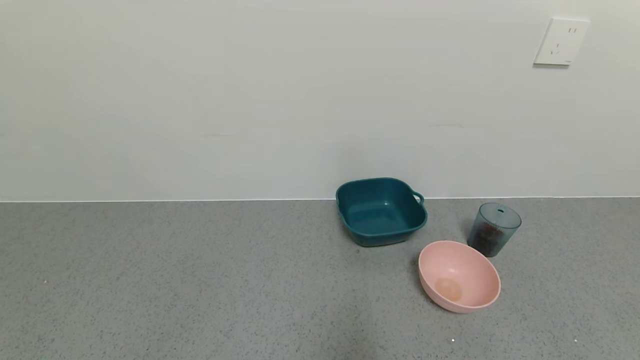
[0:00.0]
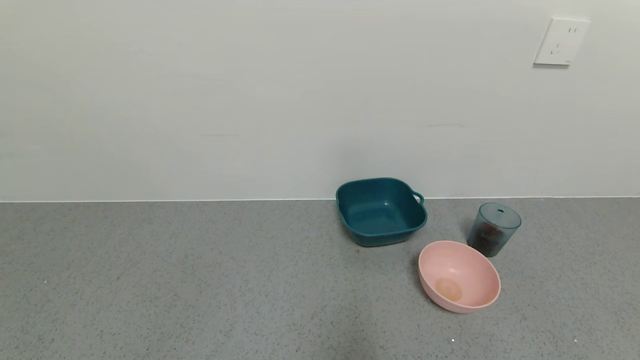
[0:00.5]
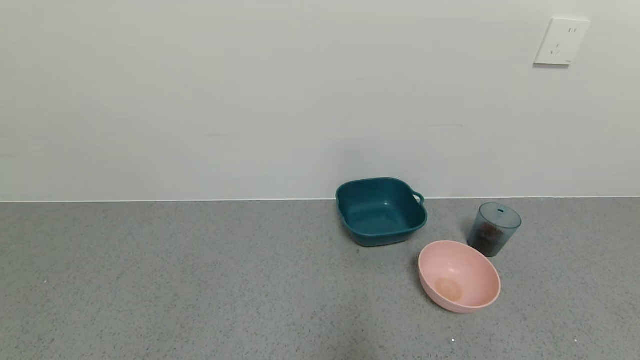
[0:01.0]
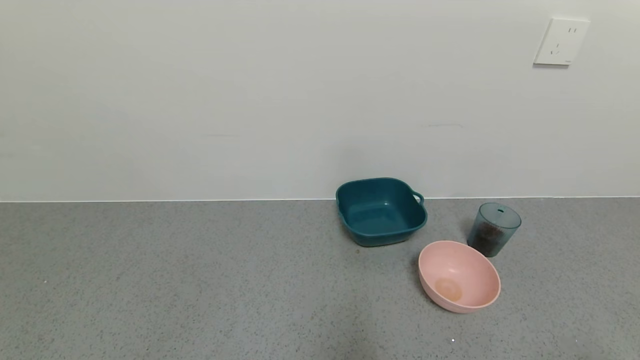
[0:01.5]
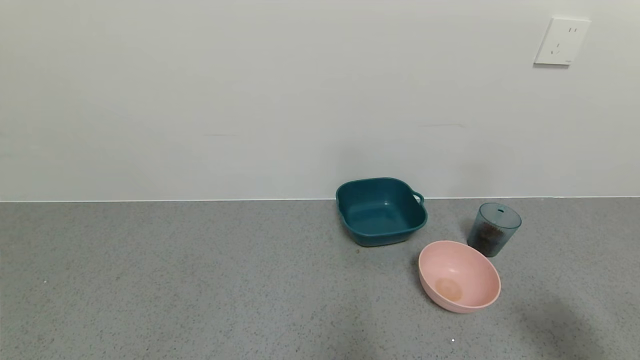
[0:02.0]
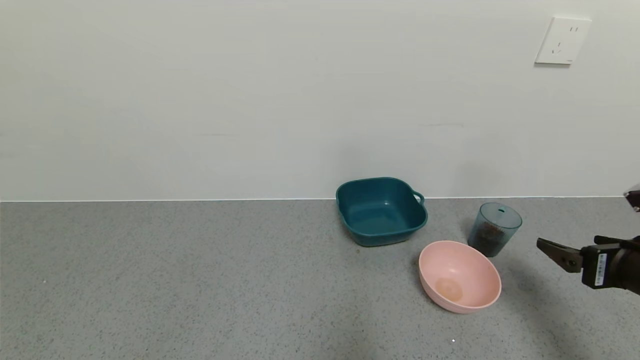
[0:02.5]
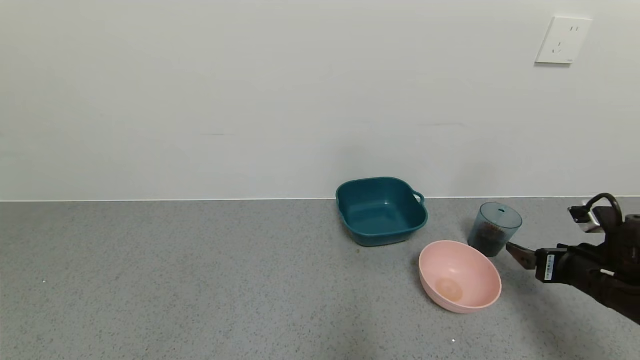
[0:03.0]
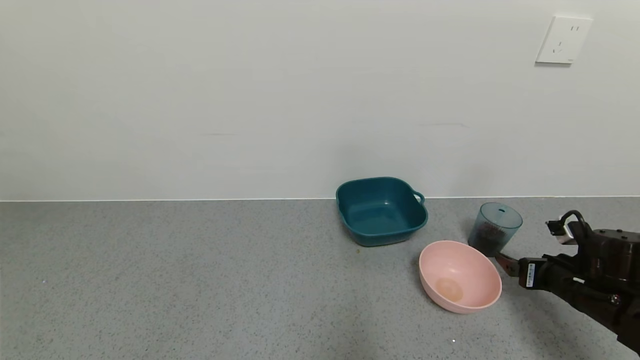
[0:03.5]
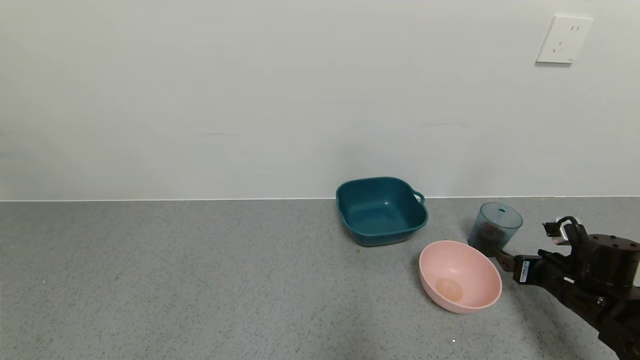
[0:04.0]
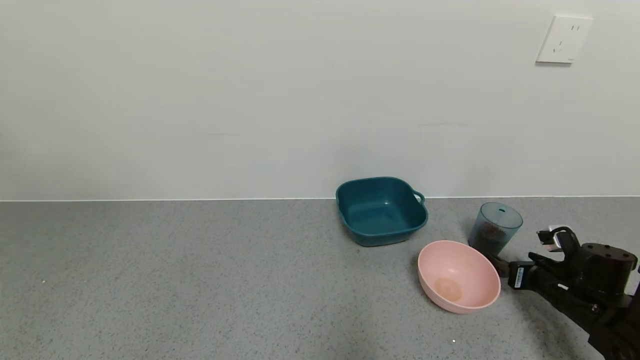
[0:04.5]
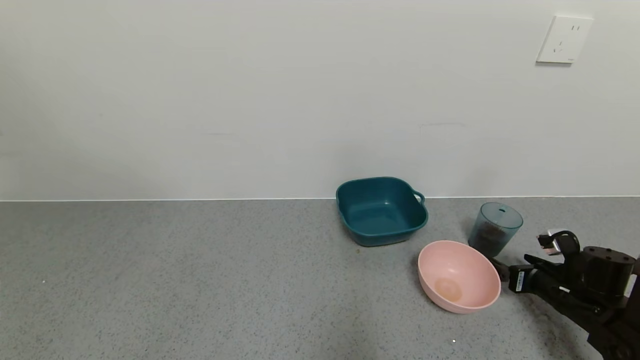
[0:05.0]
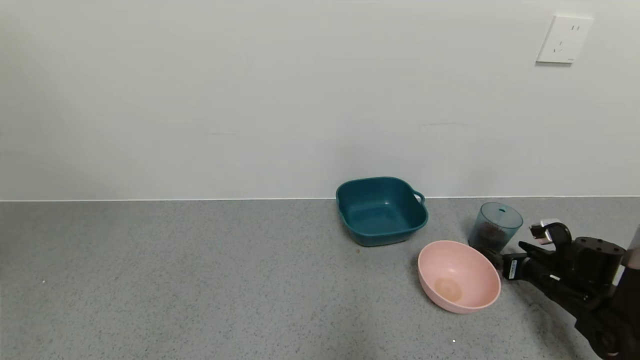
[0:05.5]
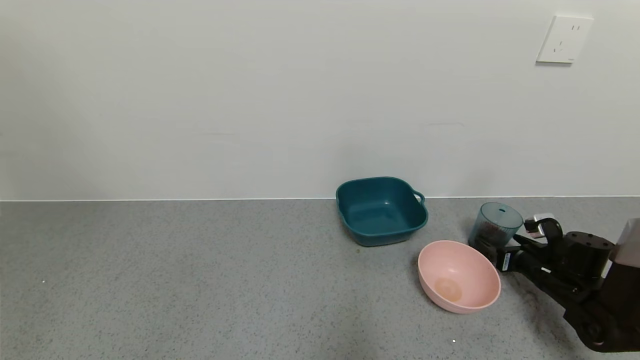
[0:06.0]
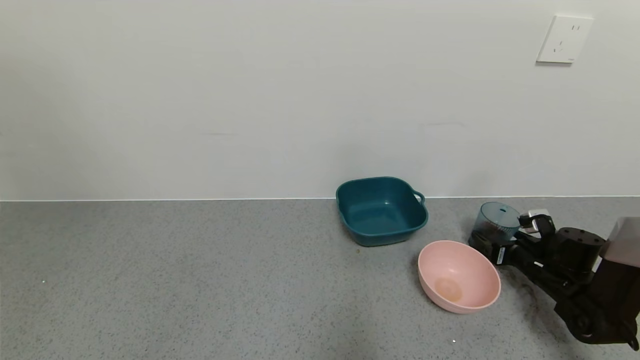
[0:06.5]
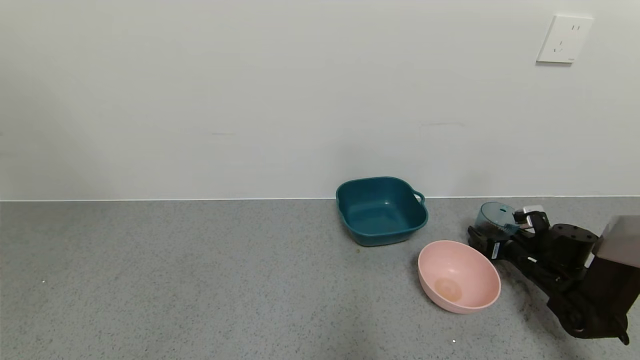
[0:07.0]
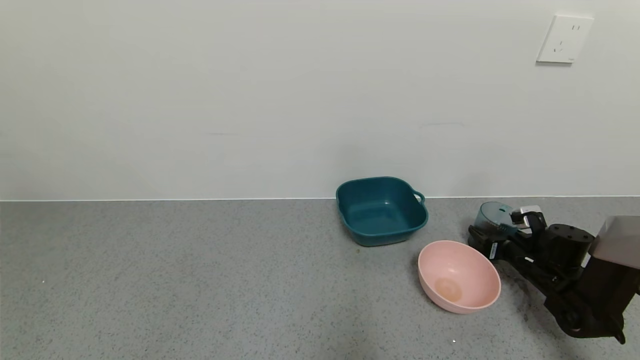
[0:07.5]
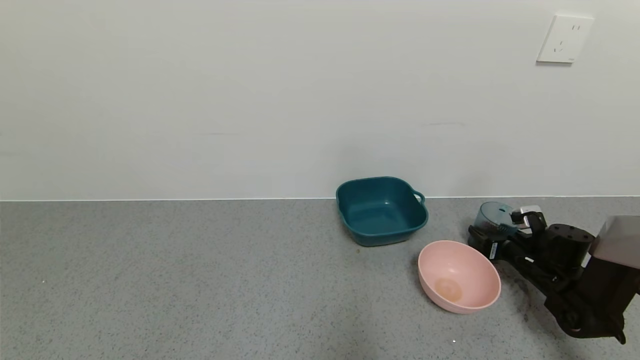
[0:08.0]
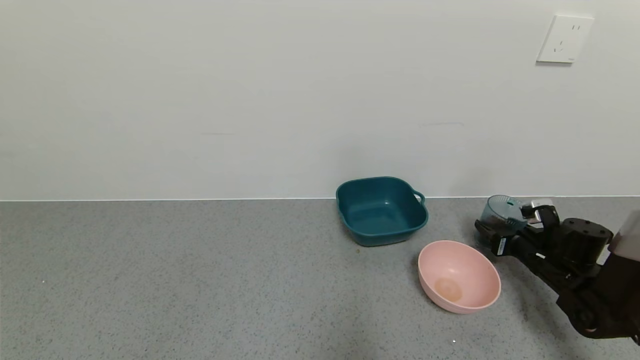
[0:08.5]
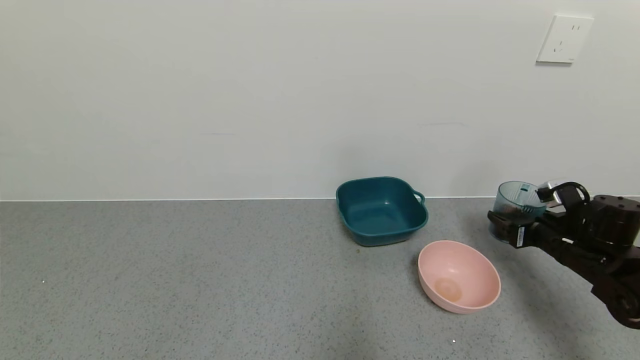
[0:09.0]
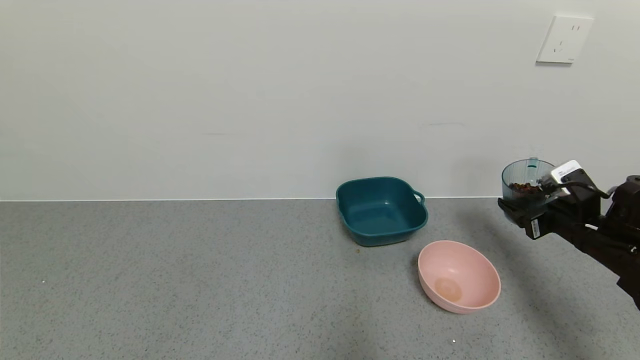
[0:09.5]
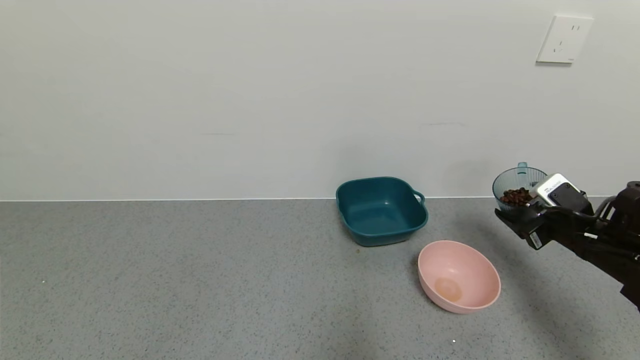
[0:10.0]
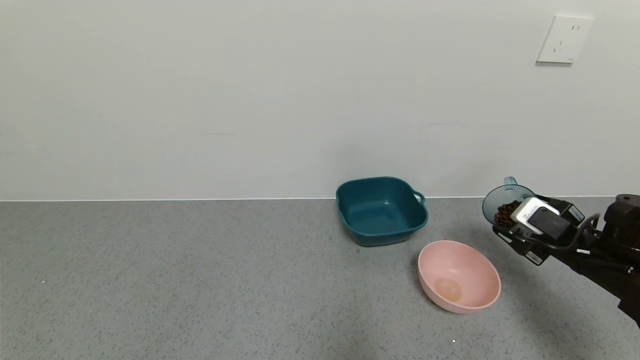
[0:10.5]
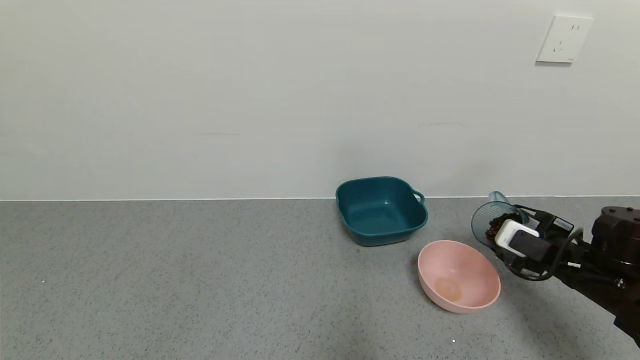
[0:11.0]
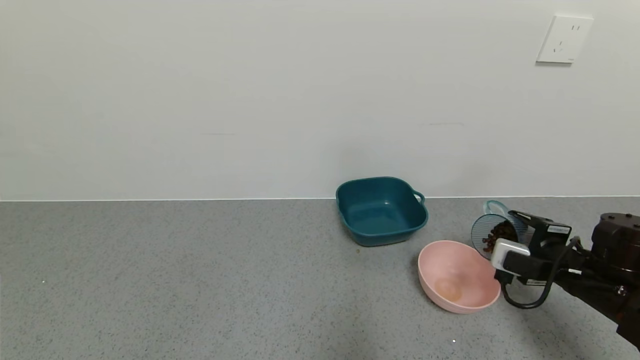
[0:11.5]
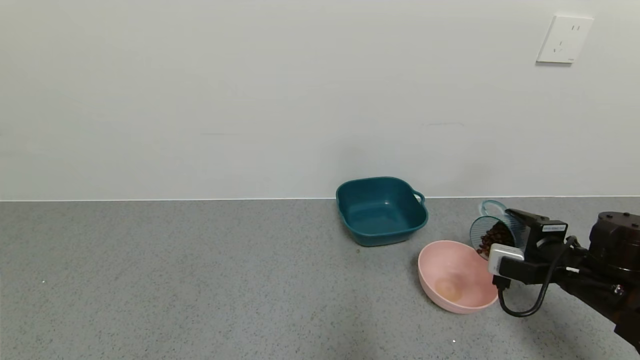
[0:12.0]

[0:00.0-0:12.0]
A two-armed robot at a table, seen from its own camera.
Task of the whole recording: use a gripper to pick up the cup and pour the solid into a bowl or tray.
Step, 0:00.0 to 0:08.0: Grasp the glass of coffee beans with the right gripper.
0:00.0 to 0:02.0: The right gripper heads upward and forward, covering some 15 cm.
0:02.0 to 0:04.0: The right gripper travels forward and downward by approximately 25 cm.
0:04.0 to 0:06.0: The right gripper goes approximately 5 cm forward.
0:06.0 to 0:08.0: The right gripper closes up.
0:08.0 to 0:10.0: The right gripper is displaced upward and backward by about 15 cm.
0:10.0 to 0:12.0: The right gripper moves approximately 5 cm.

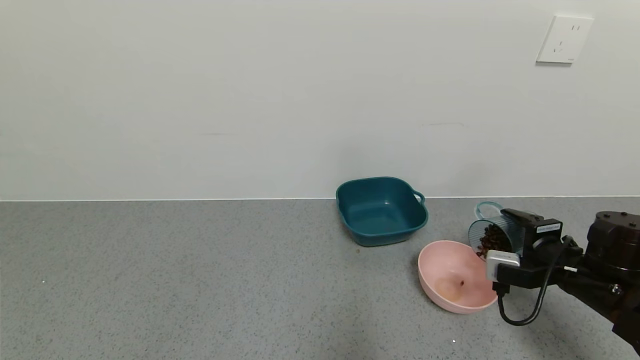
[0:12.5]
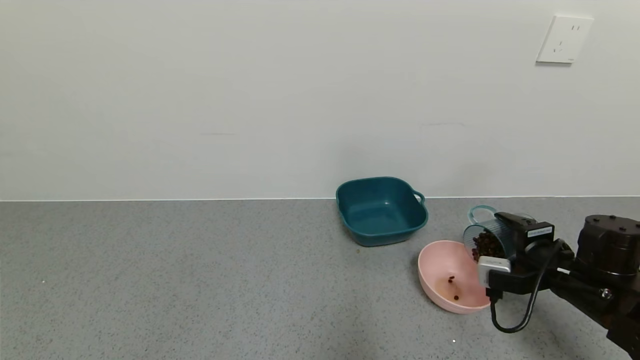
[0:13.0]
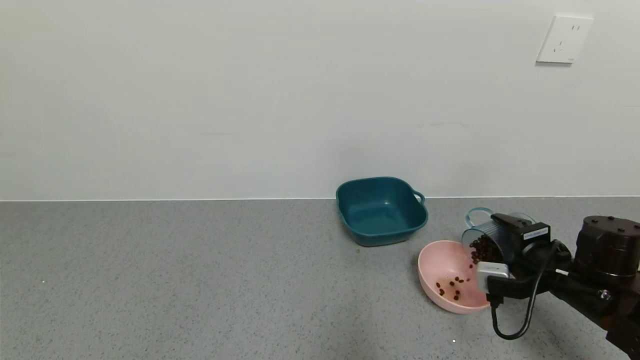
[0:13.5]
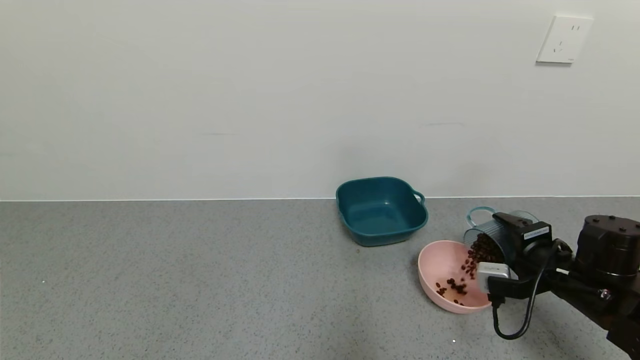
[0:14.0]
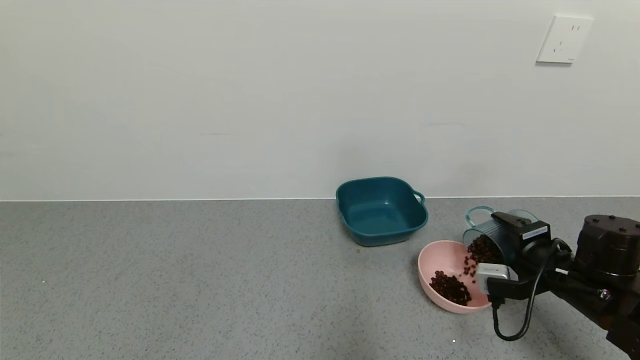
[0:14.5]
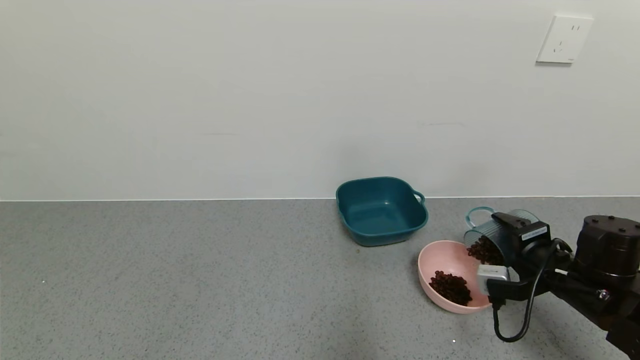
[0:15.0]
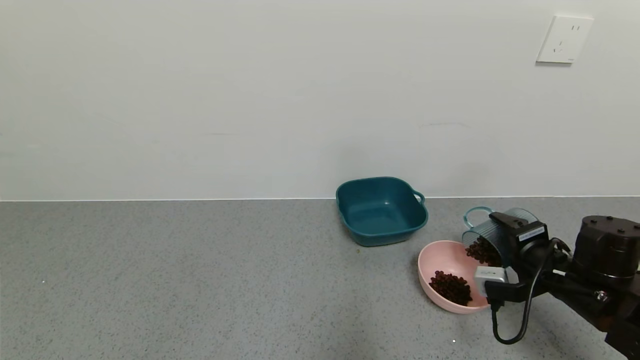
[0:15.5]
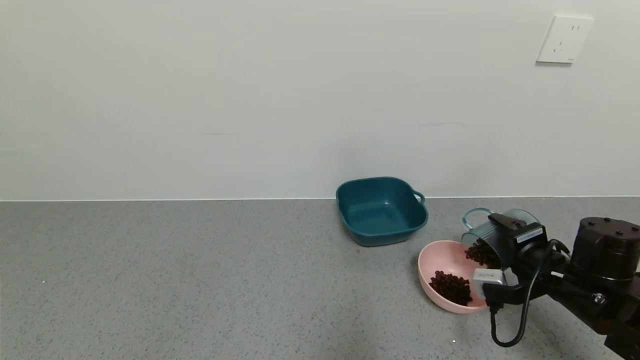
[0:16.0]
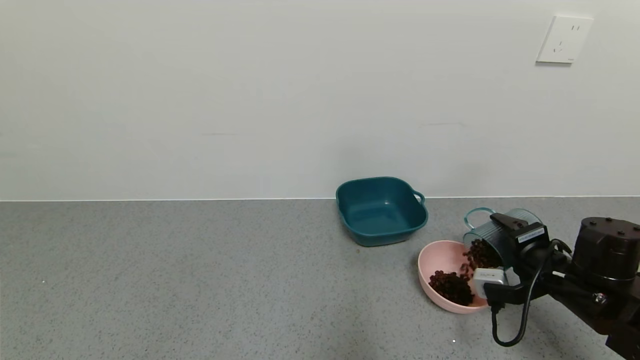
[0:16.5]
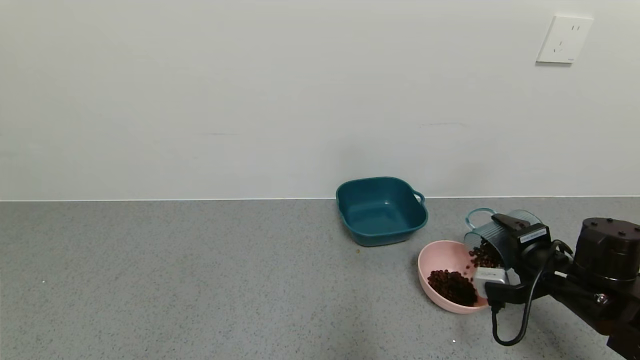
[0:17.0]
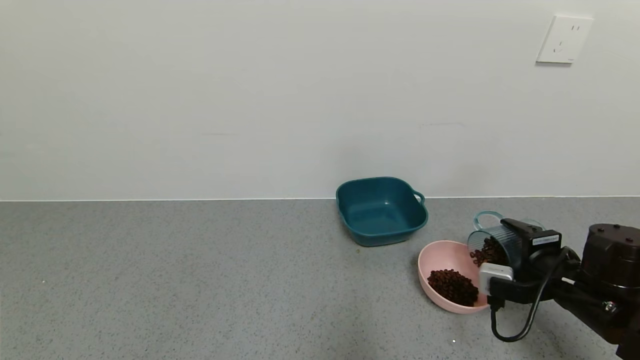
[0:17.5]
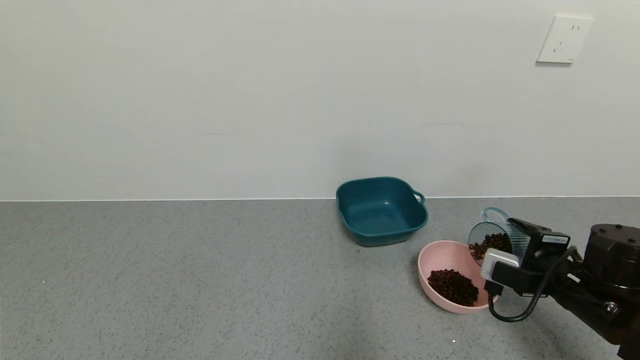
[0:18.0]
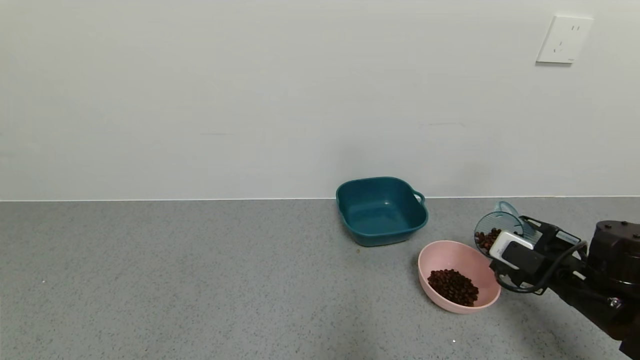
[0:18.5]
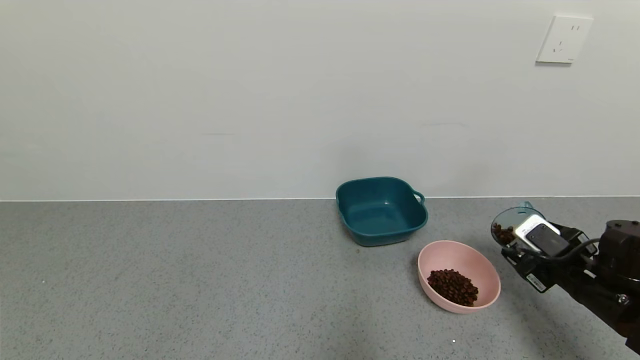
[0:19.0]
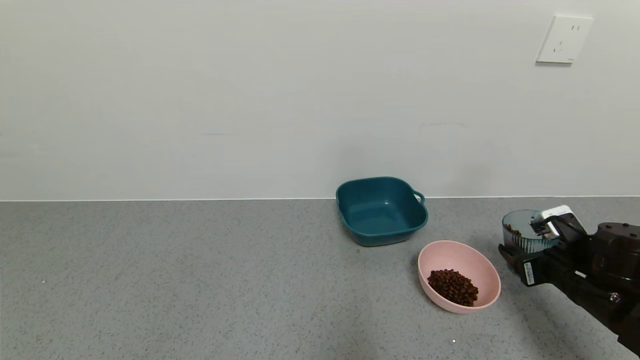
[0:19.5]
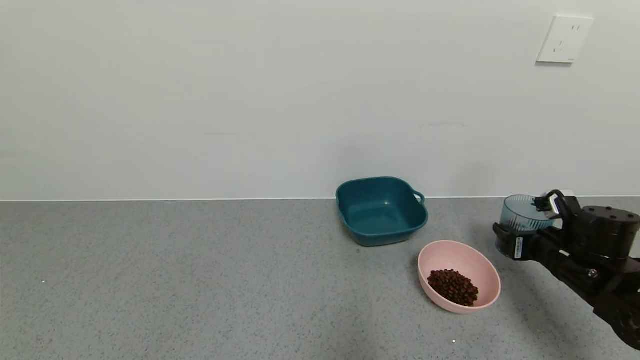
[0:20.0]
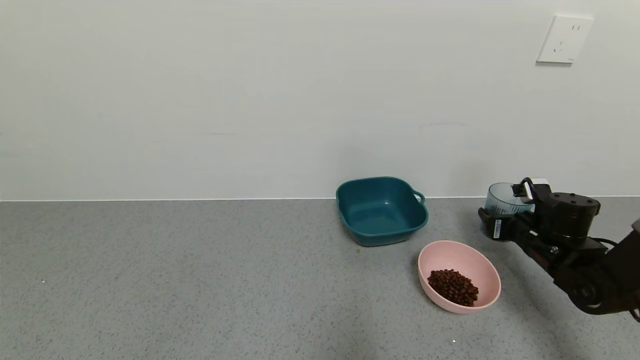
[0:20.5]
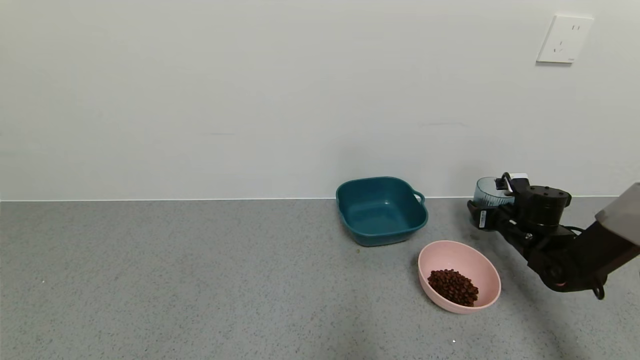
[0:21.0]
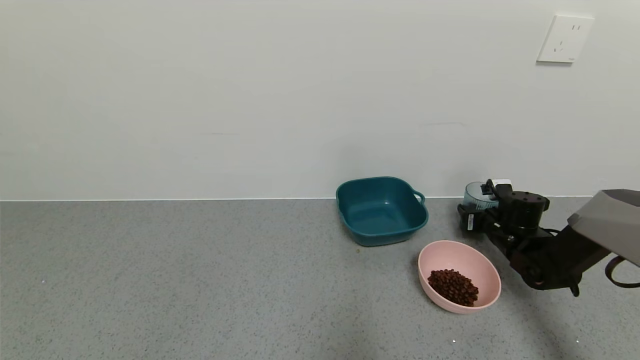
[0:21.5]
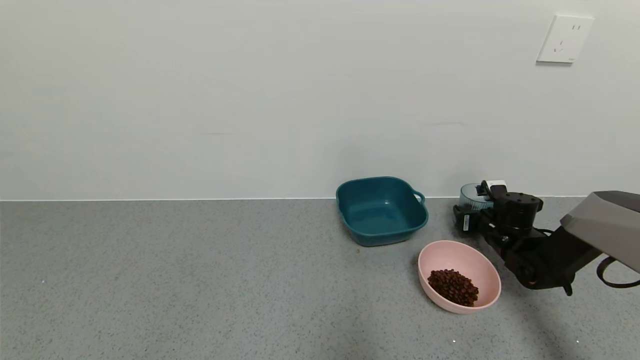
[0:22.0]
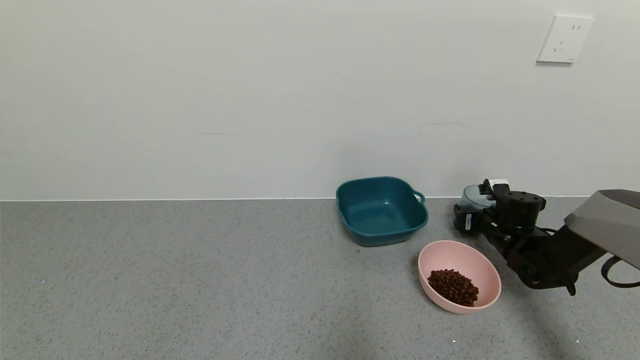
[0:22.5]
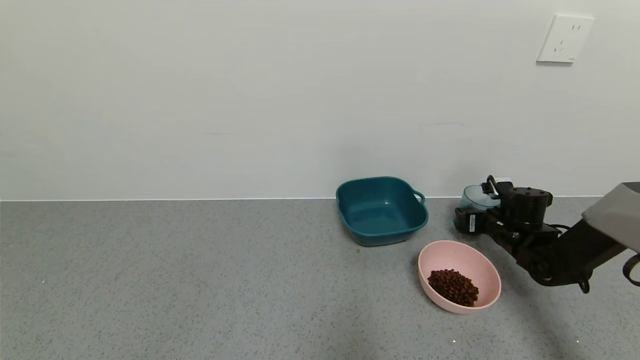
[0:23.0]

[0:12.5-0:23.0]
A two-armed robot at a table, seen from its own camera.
Task of the whole recording: use a gripper to pick up the cup and pour the solid into a bowl or tray.
Step, 0:12.5 to 0:19.0: Pour the coffee beans into the pink bowl with the right gripper.
0:12.5 to 0:16.5: The grippers stay close to where they were, moving slightly.
0:19.0 to 0:21.0: The right gripper goes about 15 cm forward.
0:21.0 to 0:23.0: The right gripper opens up.
